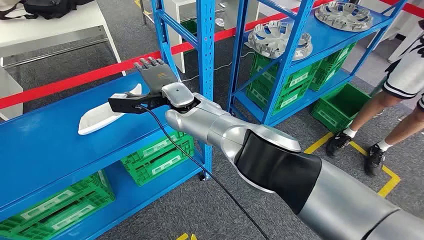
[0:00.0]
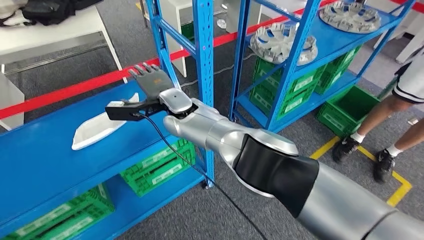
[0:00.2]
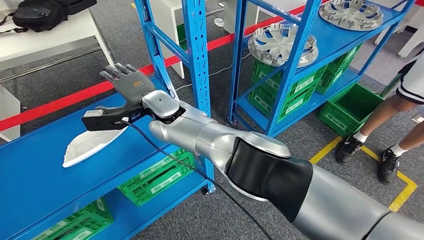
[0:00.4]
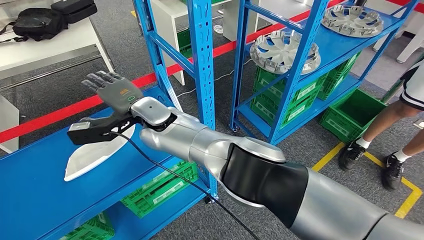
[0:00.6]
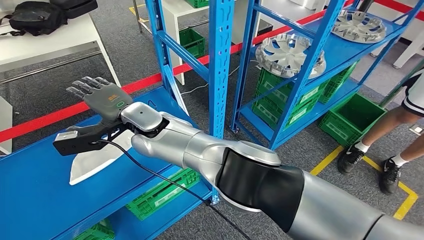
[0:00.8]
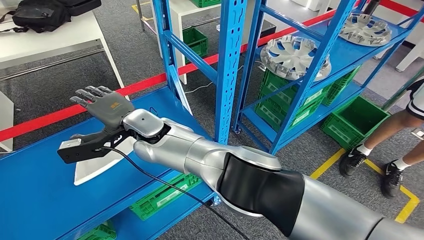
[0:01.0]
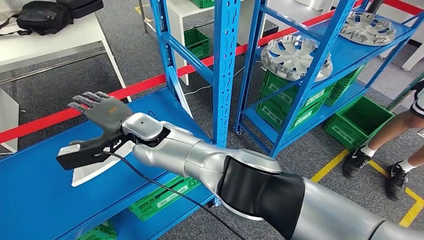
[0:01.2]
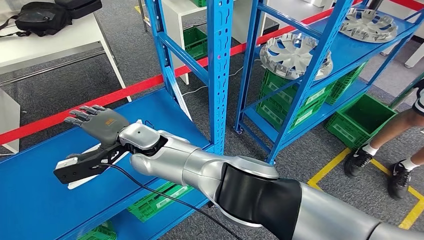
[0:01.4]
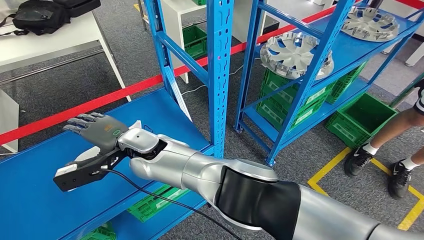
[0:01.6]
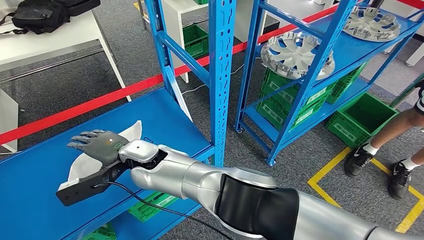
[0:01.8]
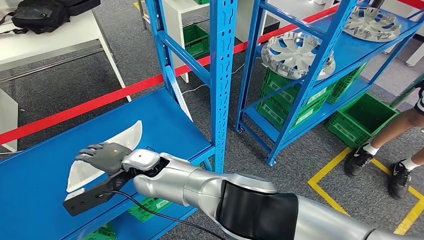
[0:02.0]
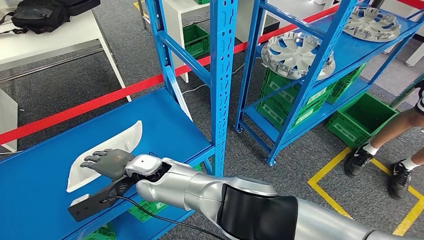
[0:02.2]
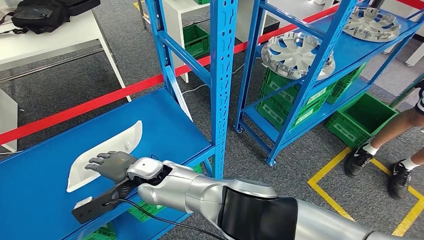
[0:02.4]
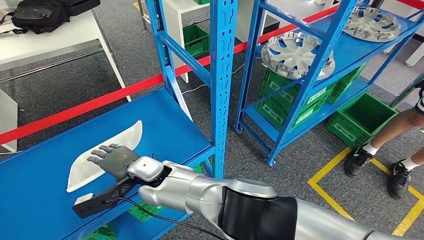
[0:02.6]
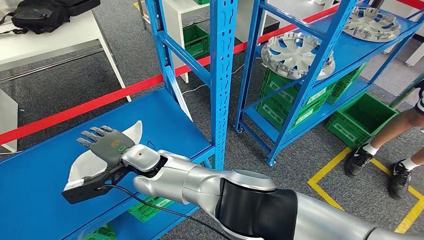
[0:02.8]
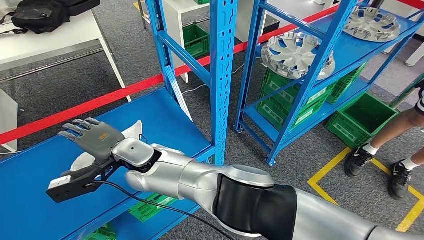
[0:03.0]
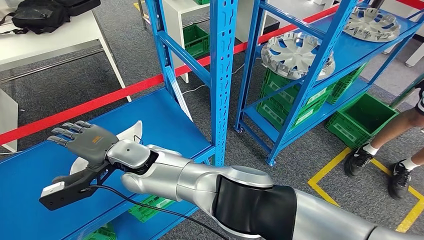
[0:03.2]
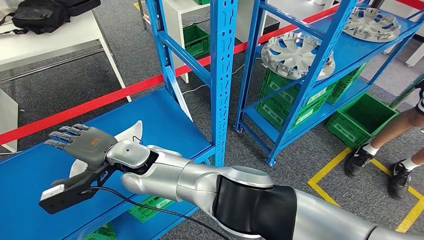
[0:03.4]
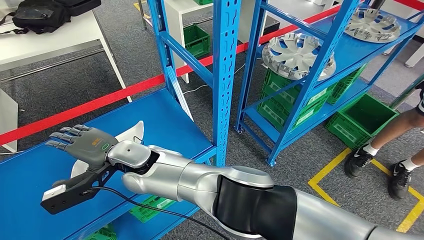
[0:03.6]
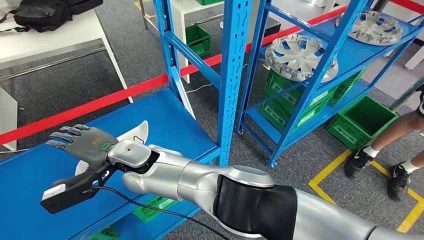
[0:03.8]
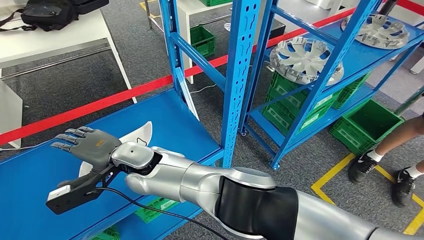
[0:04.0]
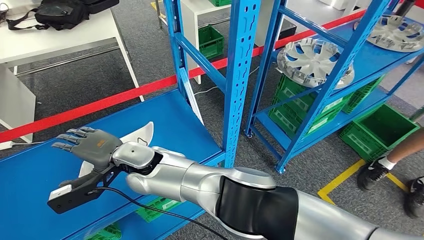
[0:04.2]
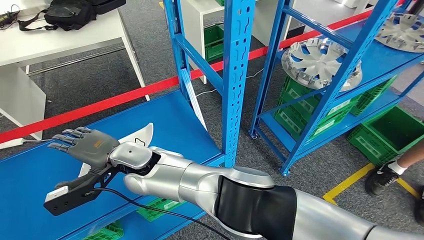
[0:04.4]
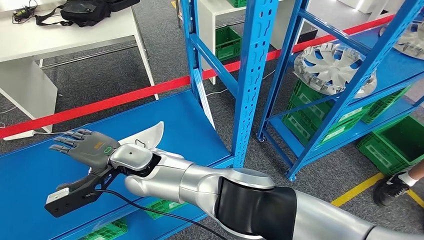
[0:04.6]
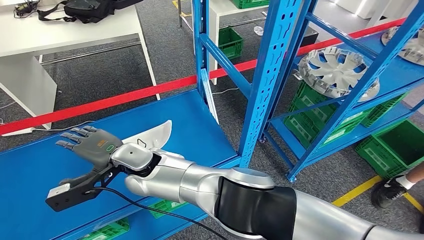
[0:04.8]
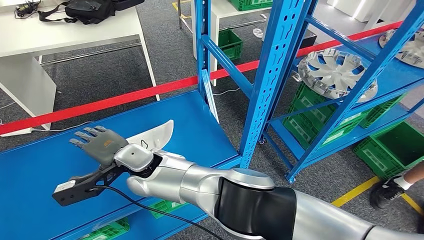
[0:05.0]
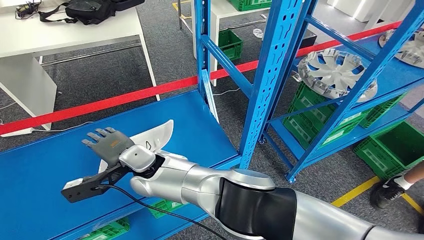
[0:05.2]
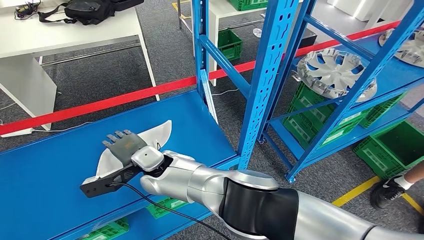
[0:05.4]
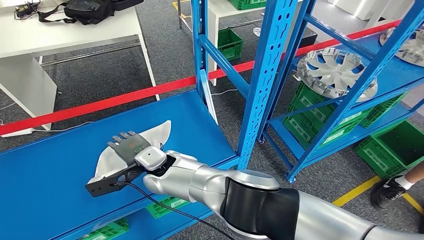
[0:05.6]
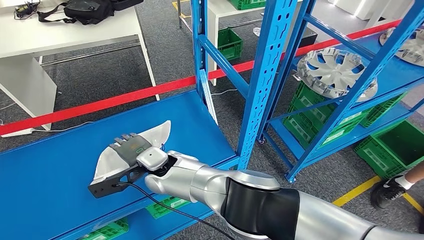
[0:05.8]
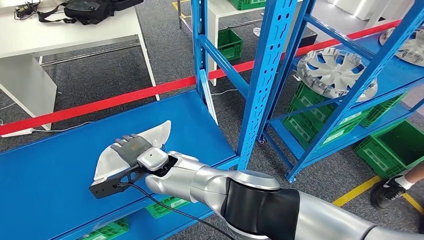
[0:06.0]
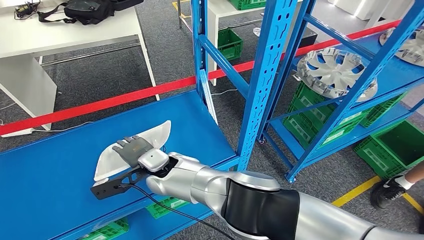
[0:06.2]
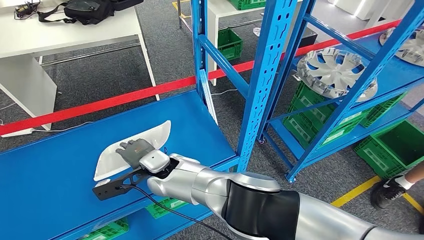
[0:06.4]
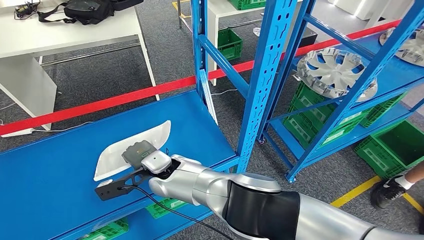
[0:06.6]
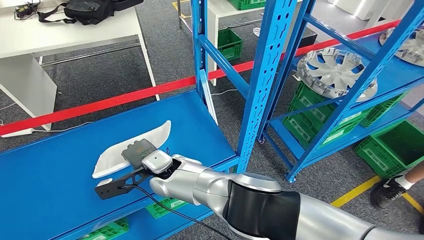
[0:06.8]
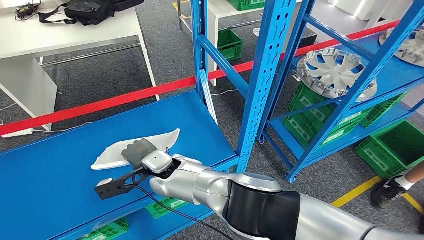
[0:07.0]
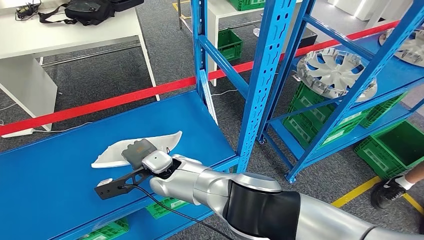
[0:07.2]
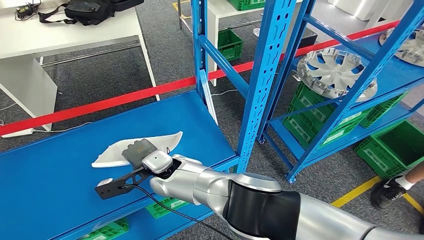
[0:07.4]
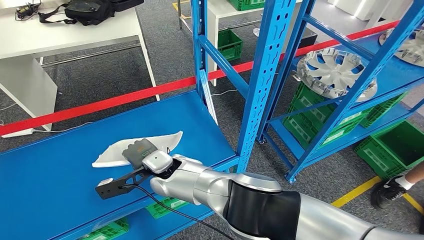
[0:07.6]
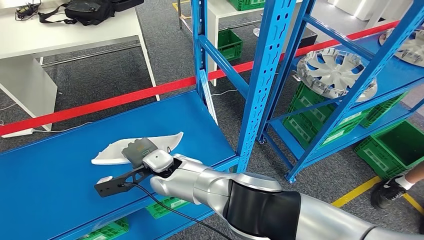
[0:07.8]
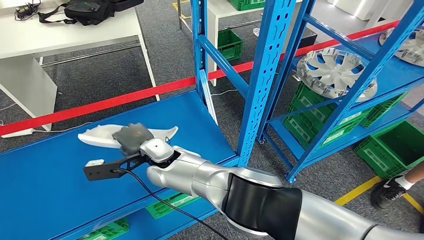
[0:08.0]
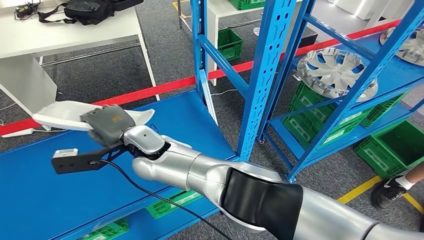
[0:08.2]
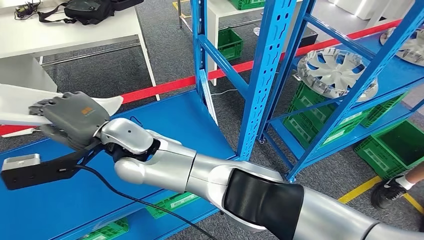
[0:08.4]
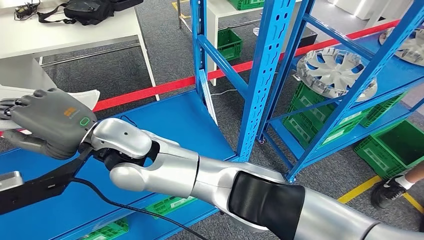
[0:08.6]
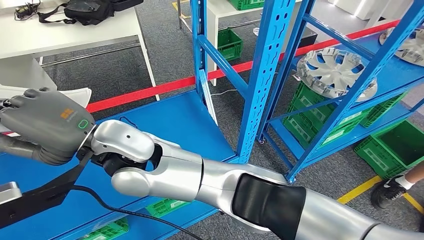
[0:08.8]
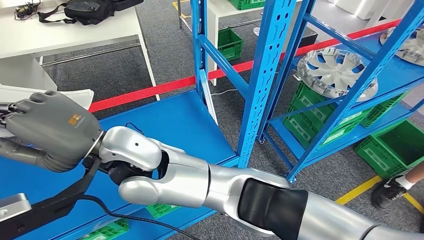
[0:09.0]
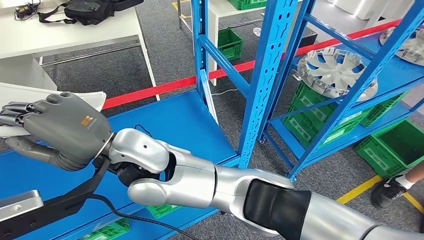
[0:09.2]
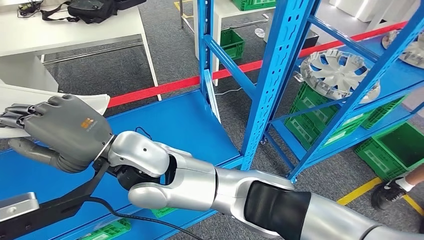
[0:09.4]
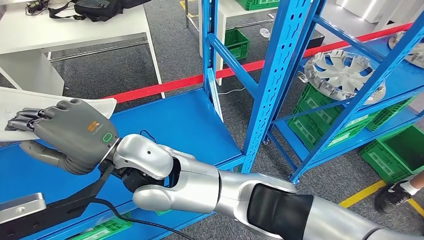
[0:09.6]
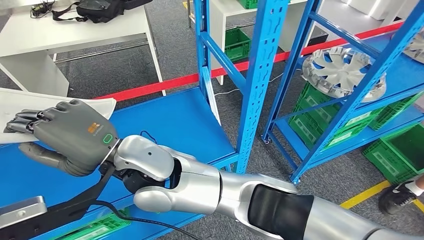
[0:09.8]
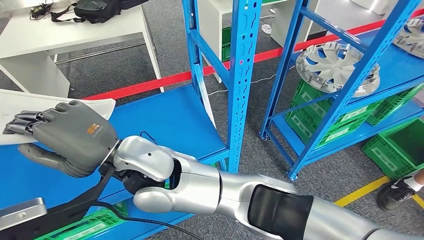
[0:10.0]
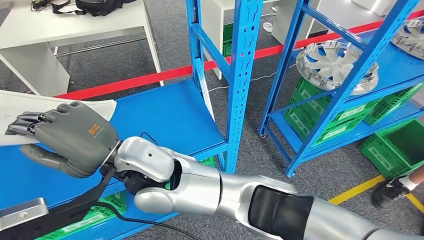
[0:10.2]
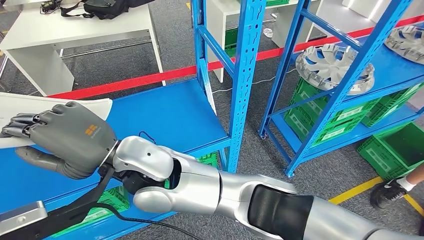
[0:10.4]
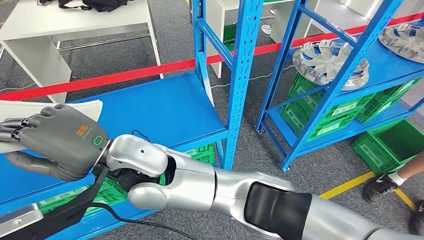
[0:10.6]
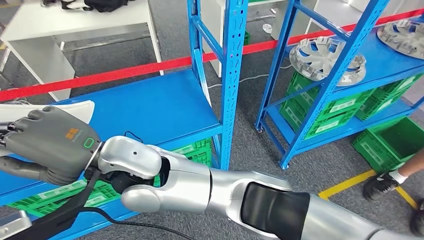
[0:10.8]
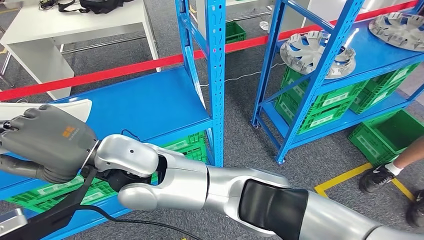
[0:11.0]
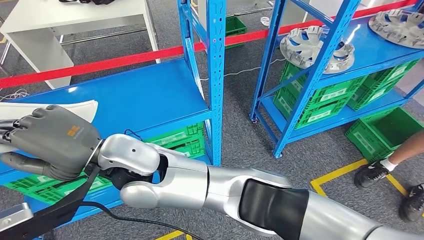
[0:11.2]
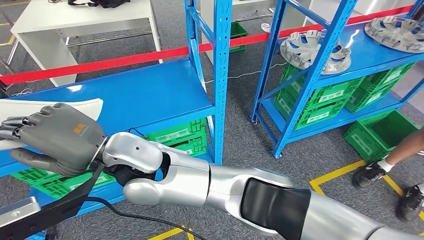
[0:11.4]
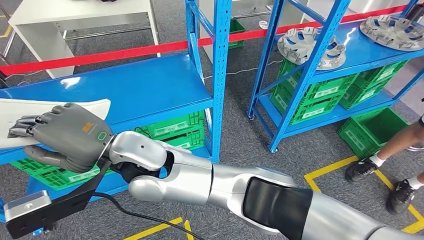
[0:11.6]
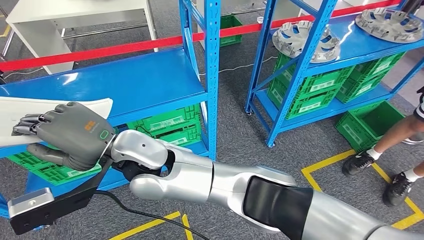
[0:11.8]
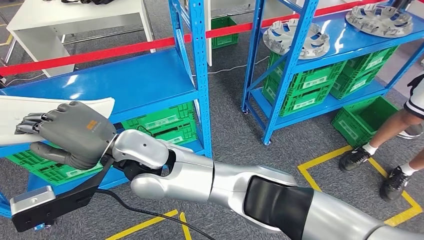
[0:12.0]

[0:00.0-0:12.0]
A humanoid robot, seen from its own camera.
Step, 0:00.0 to 0:09.8: Take small components from the rack.
0:06.0 to 0:07.6: The hands make only small movements.

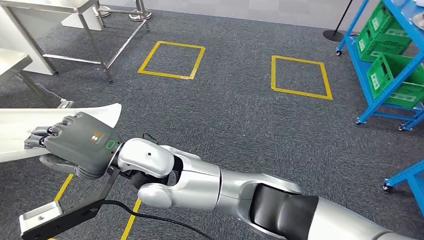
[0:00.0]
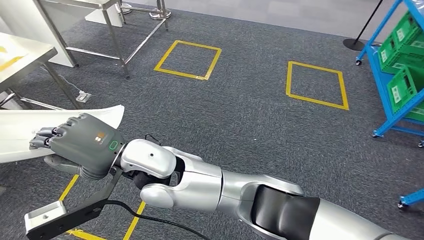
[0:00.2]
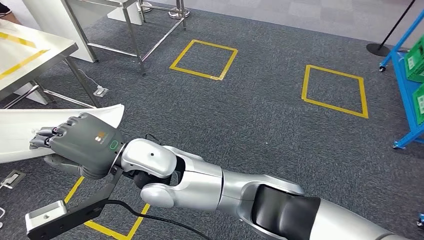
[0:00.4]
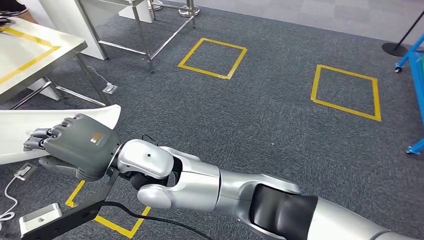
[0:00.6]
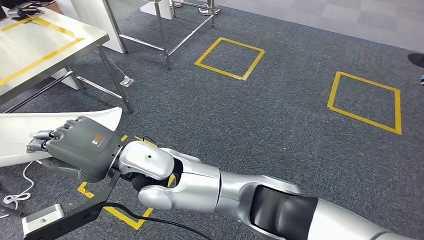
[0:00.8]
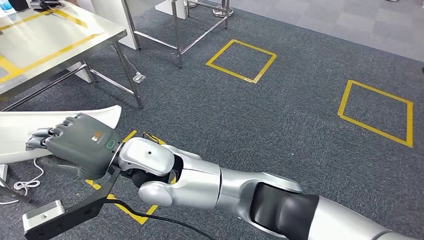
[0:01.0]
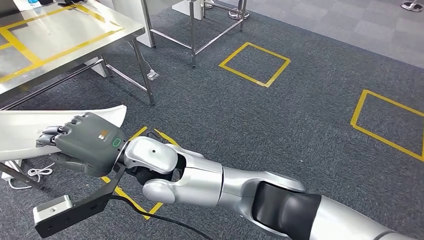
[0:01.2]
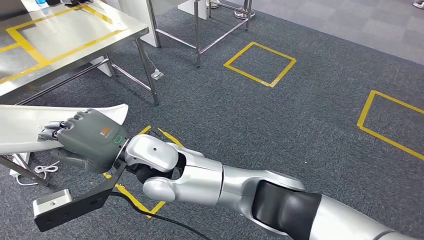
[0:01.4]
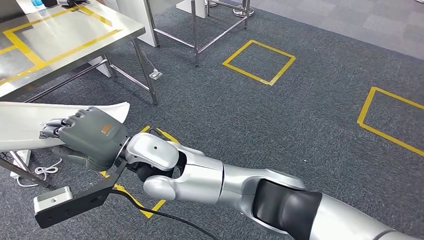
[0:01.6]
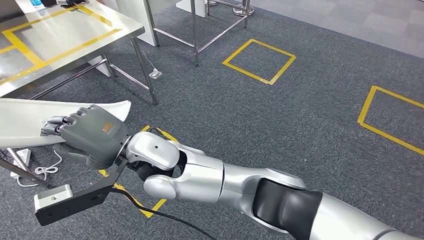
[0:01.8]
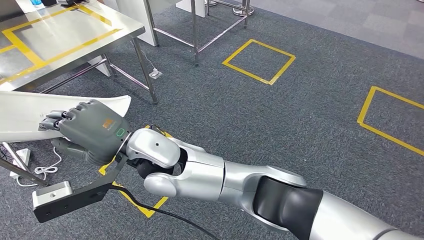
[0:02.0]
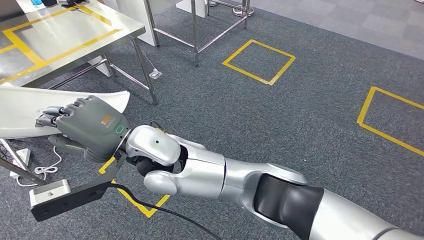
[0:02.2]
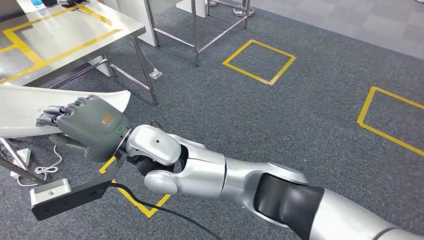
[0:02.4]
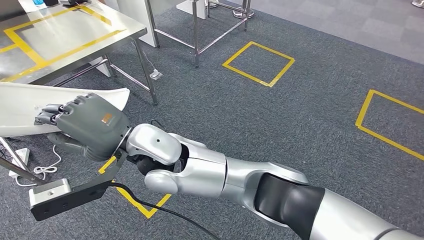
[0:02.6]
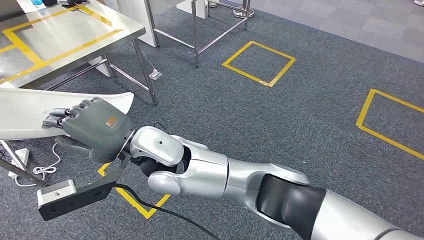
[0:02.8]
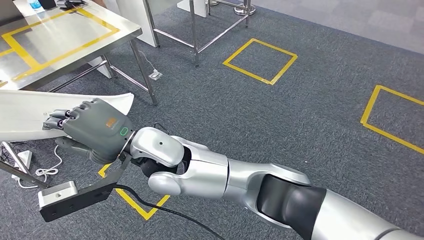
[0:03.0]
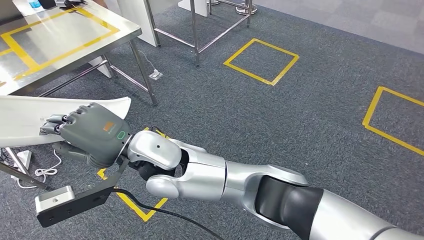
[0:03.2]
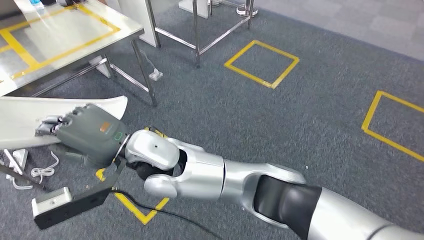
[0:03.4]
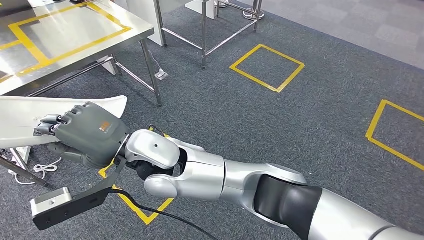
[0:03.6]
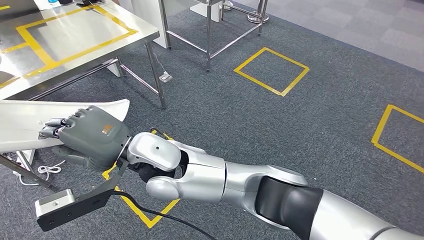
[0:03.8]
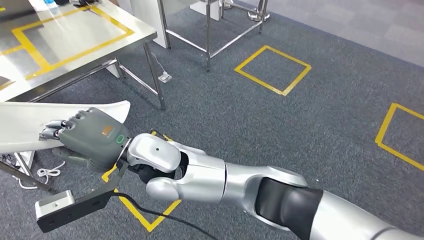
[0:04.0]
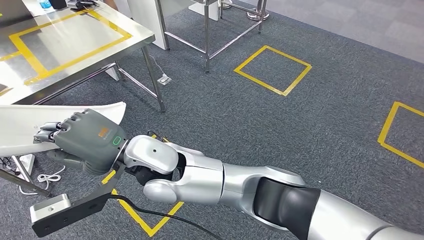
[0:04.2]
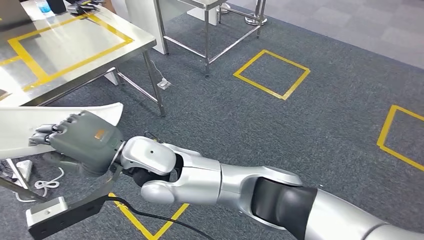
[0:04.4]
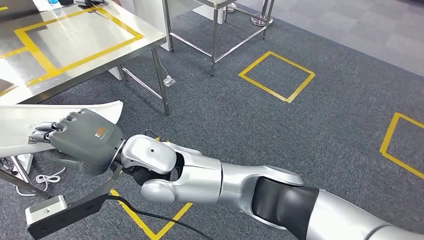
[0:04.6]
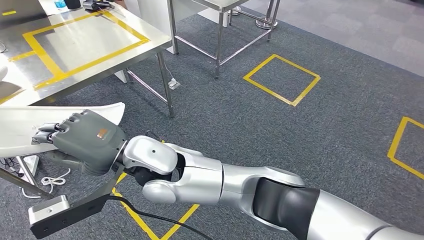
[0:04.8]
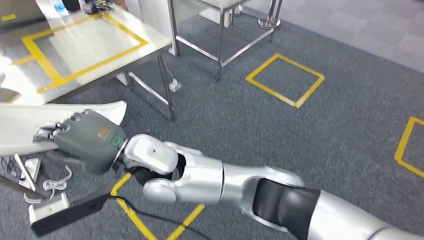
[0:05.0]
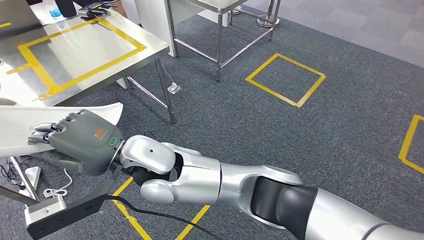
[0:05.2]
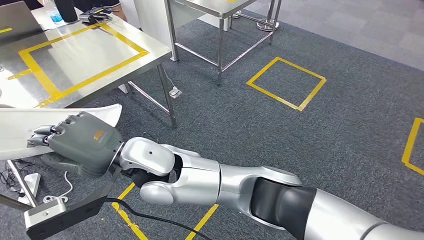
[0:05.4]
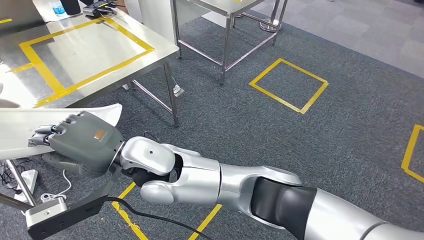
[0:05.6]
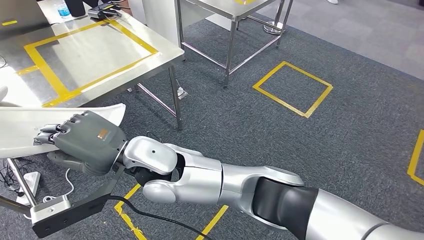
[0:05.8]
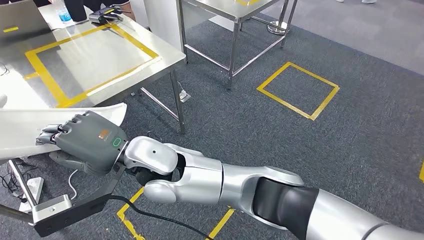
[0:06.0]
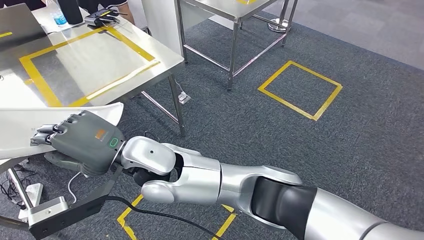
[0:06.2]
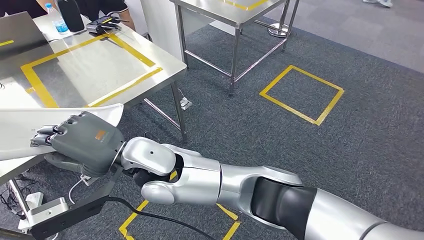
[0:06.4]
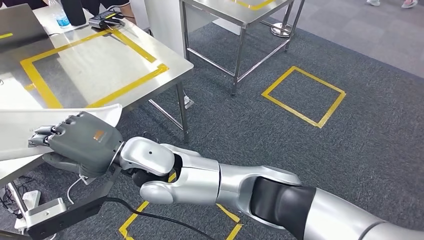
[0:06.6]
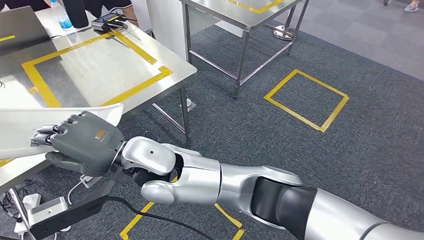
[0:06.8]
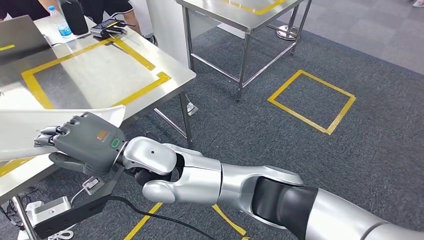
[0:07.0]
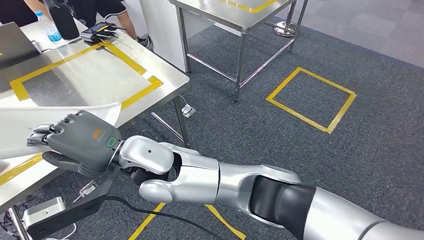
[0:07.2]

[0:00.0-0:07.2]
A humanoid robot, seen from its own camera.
Step, 0:00.0 to 0:06.2: Move the small parts to the workbench.
